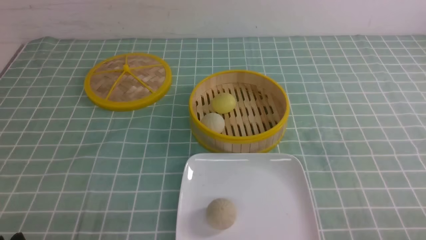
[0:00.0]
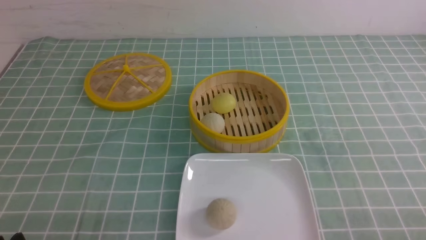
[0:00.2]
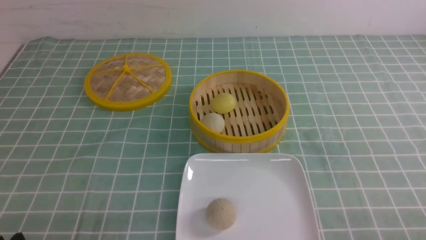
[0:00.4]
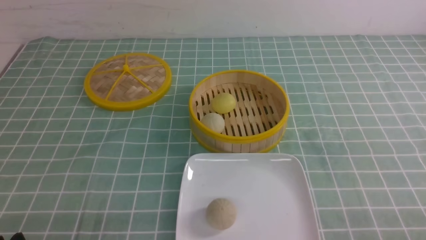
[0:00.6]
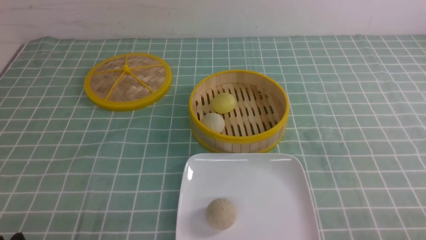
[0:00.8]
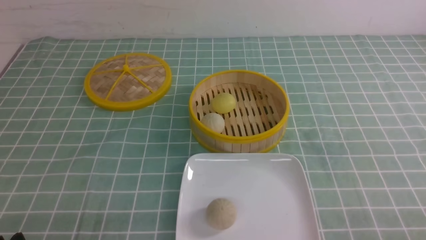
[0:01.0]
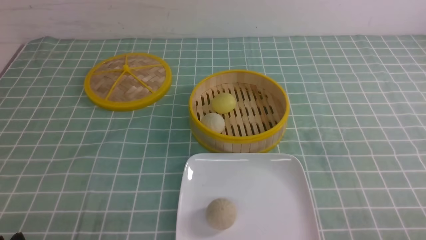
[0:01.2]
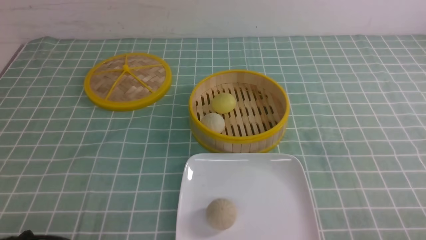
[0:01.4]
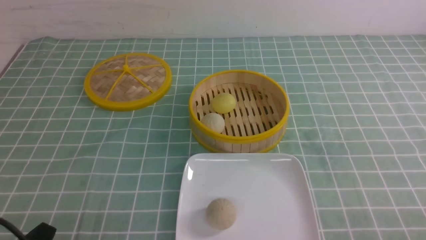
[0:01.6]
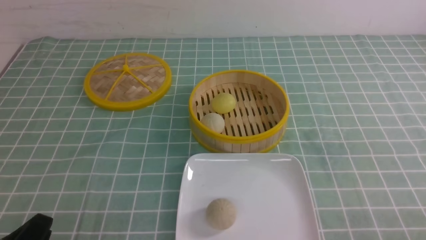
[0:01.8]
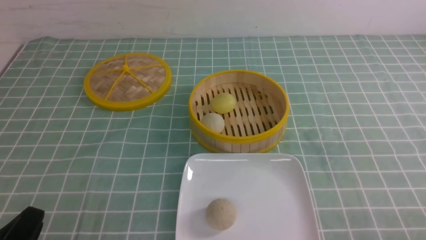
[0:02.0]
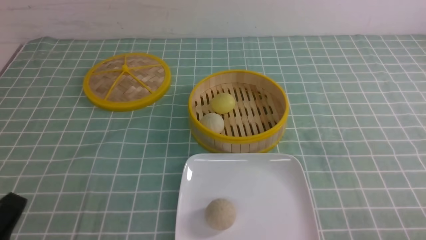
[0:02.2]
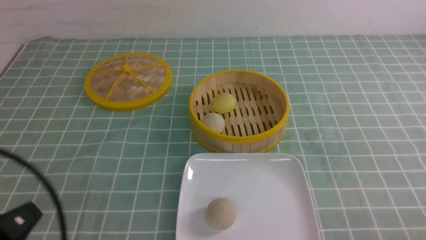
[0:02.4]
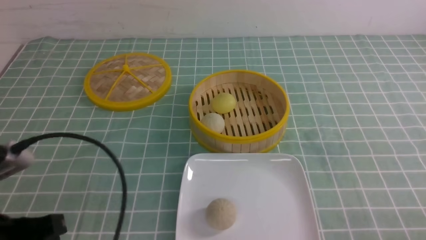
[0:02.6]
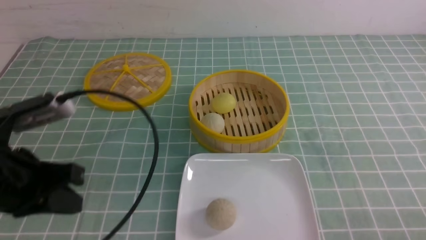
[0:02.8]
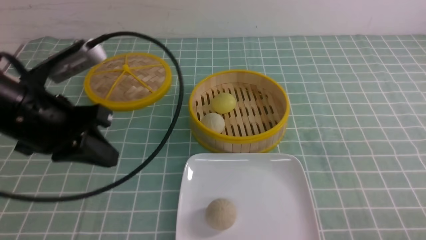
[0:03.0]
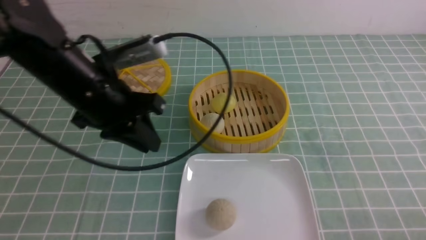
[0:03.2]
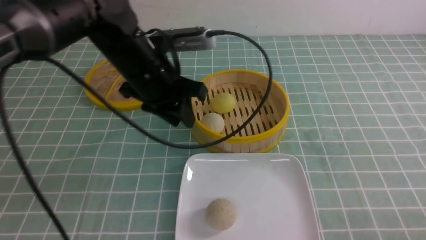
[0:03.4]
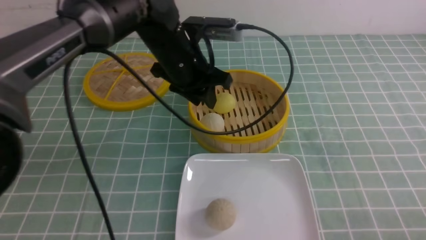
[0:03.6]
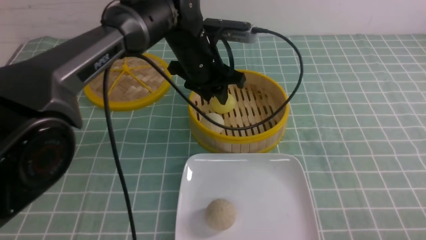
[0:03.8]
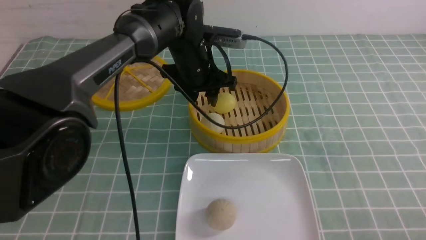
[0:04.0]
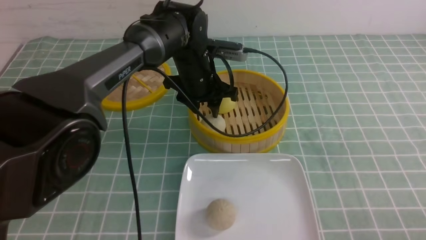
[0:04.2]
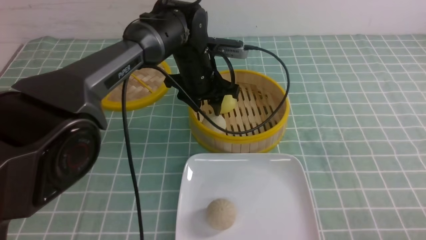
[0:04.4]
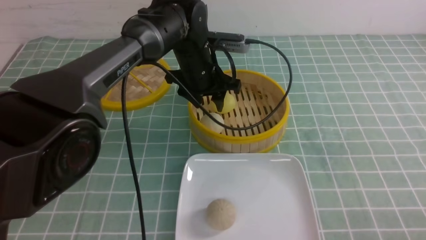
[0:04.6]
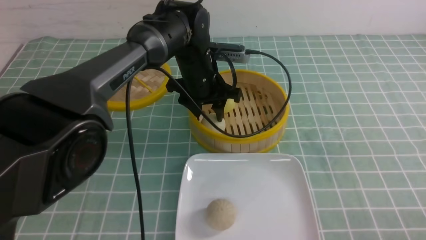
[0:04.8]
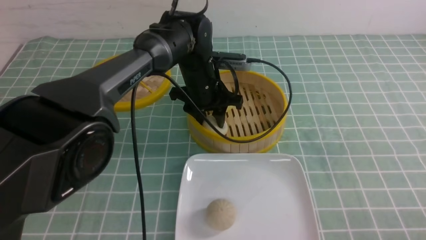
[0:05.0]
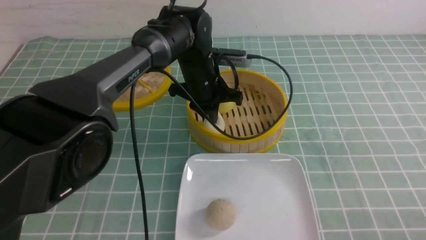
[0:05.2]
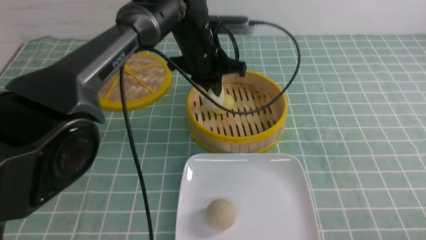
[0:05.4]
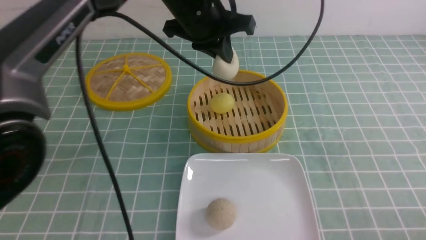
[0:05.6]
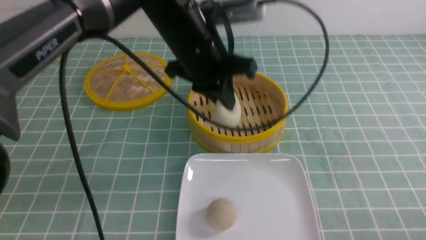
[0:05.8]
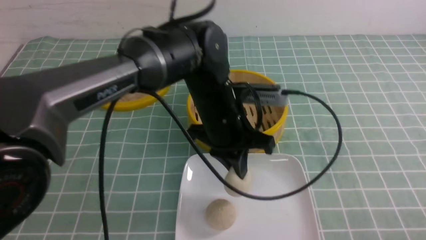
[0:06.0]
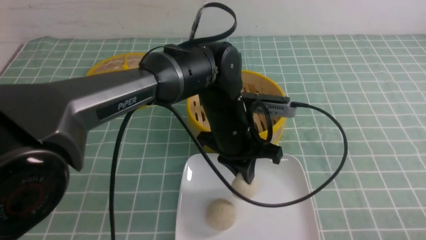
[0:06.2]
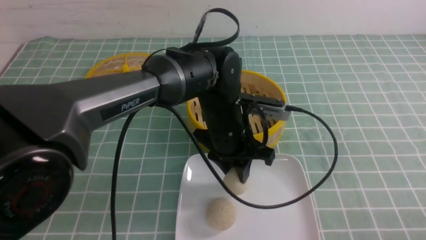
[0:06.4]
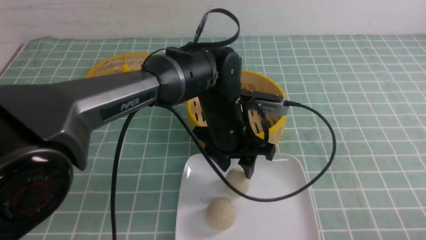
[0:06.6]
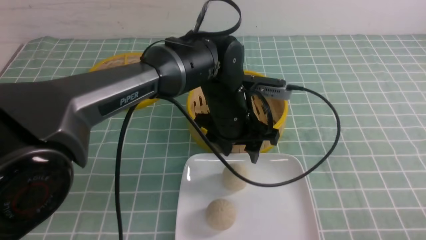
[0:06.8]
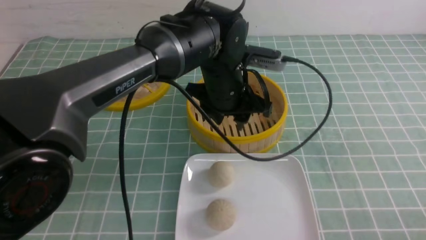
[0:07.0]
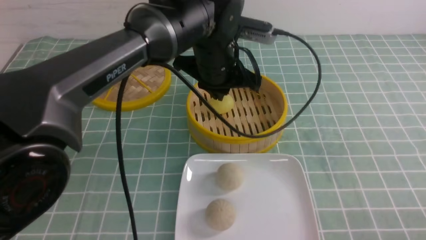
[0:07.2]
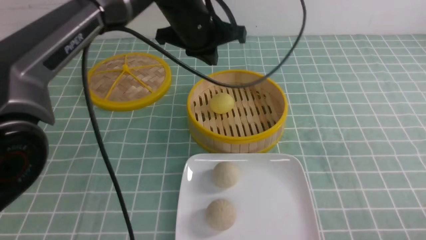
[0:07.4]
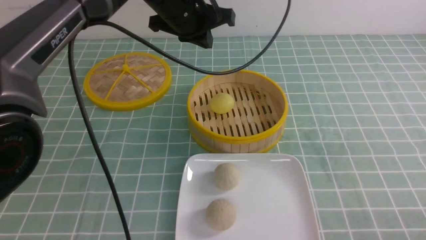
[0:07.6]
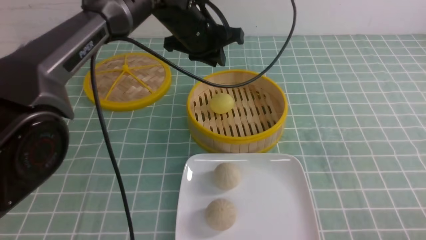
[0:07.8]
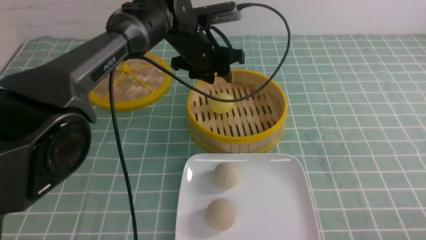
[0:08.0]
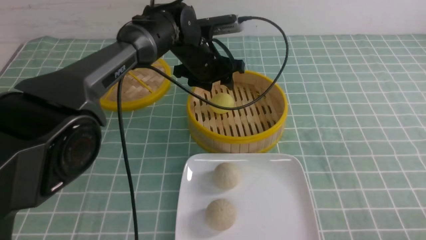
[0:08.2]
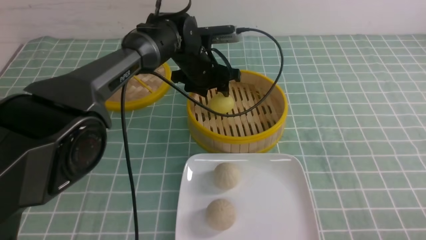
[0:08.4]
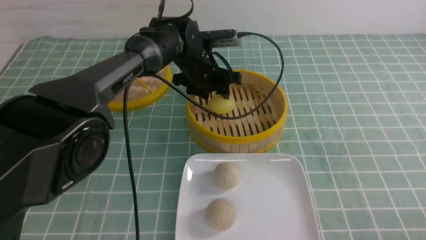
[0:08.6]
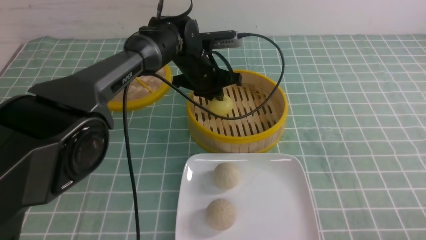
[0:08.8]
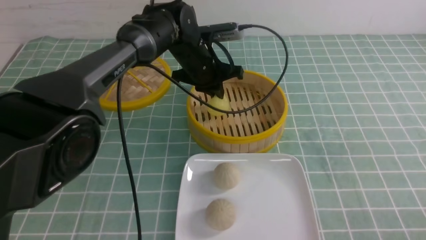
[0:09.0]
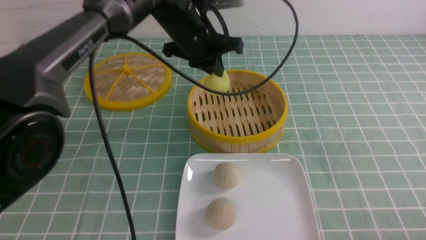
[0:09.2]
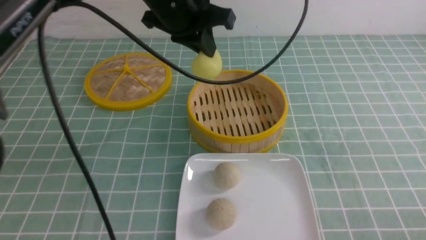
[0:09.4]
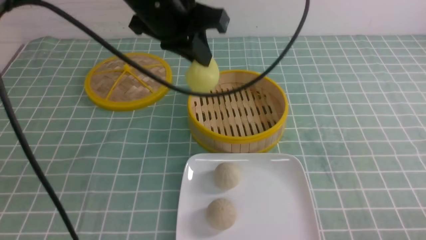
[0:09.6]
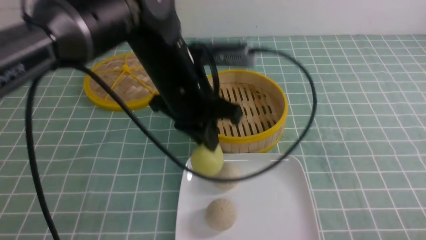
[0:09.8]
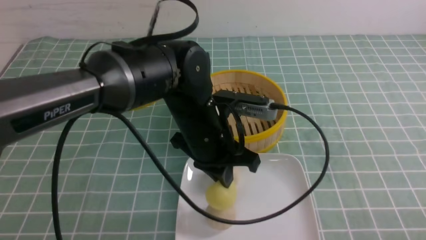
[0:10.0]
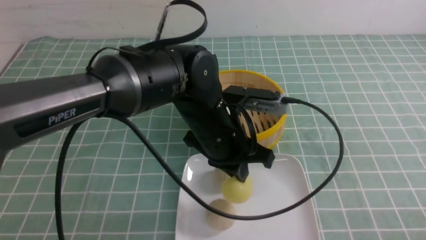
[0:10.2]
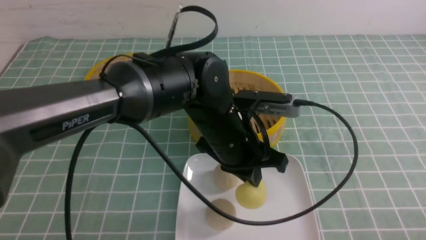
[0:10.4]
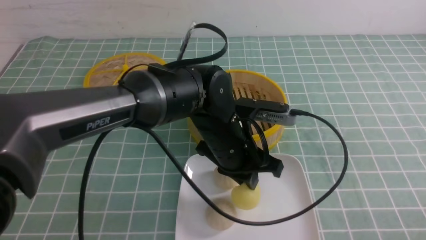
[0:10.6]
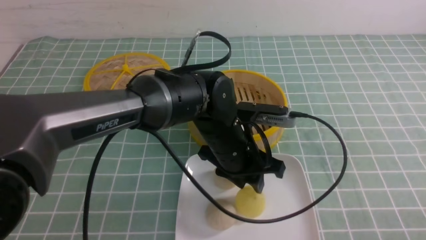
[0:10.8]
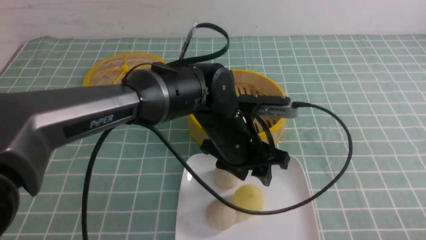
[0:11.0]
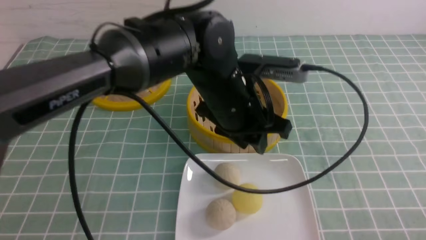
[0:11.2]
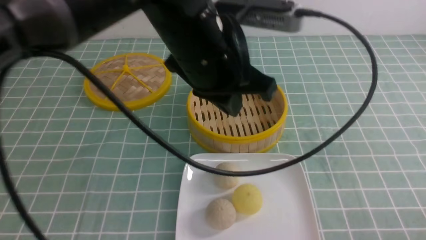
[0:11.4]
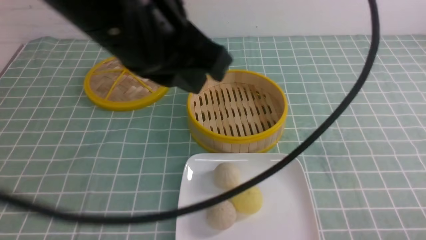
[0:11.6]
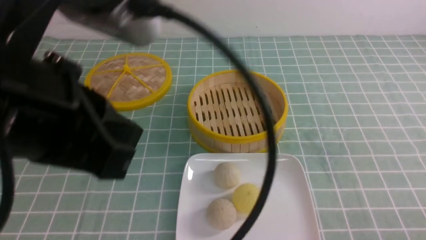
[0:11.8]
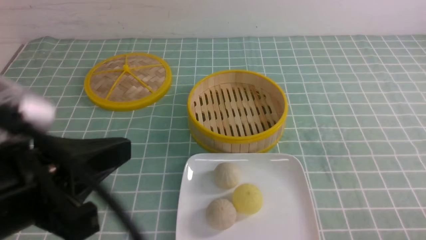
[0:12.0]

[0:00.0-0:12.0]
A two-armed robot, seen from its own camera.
Step, 0:00.0 to 0:05.0: use the left arm to grab the steamed stuffed bun that is closest to it.
Step, 0:05.4 to 0:06.6: use the left arm to put the steamed stuffed bun into the plate.
Step, 0:06.8 to 0:08.8: use the left arm to grab the steamed stuffed bun that is closest to it.
Step, 0:09.0 to 0:10.8: use the left arm to put the steamed stuffed bun into the plate.
0:01.6 to 0:03.0: The left gripper goes about 25 cm forward and upward, and closes its fingers.
0:03.0 to 0:04.4: The left gripper shifts some 25 cm forward, to the right and downward, and opens.
0:04.4 to 0:06.0: The left gripper moves backward, roughly 10 cm, moves about 10 cm upward and comes back, and closes.
0:06.0 to 0:07.6: The left gripper is displaced forward and upward by some 15 cm, and opens and closes again.
0:07.6 to 0:09.0: The left gripper shifts roughly 5 cm downward, and opens, then closes once more.
0:09.0 to 0:10.4: The left gripper is displaced backward by approximately 15 cm.
0:10.4 to 0:12.0: The left gripper travels to the left, backward and upward by about 30 cm, and opens, then closes again.

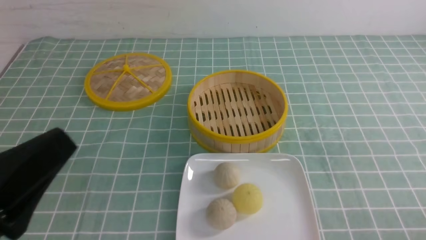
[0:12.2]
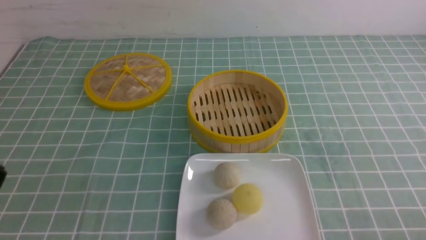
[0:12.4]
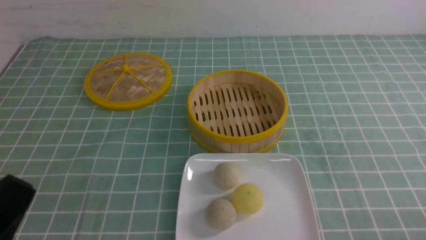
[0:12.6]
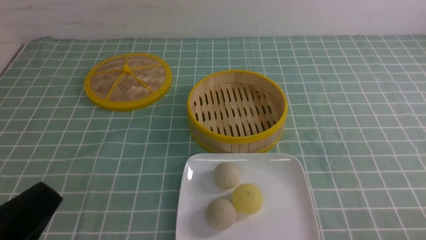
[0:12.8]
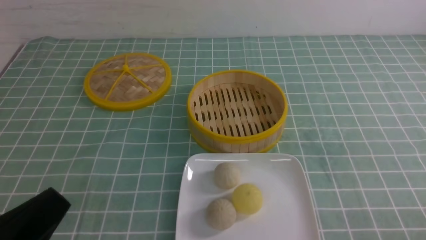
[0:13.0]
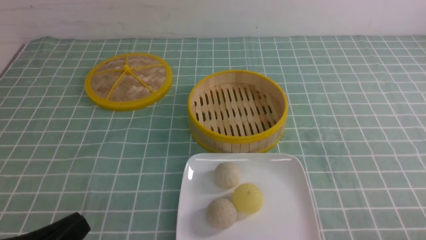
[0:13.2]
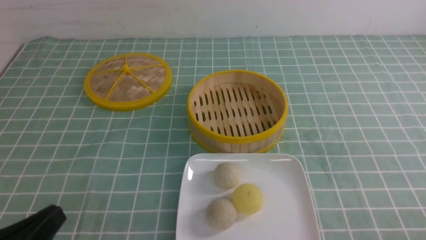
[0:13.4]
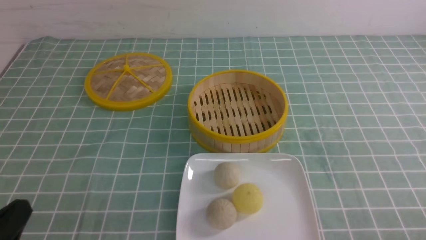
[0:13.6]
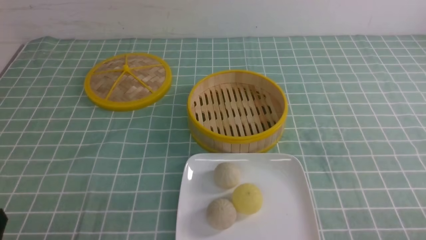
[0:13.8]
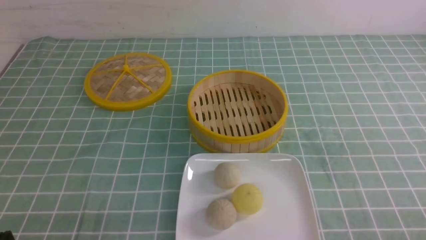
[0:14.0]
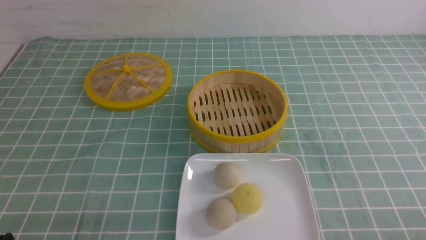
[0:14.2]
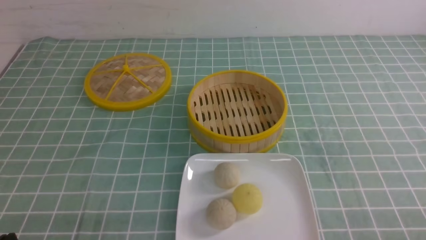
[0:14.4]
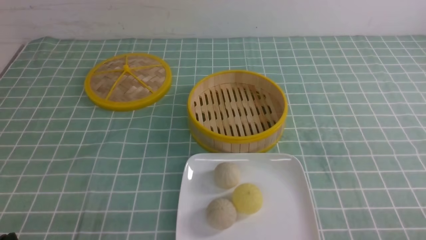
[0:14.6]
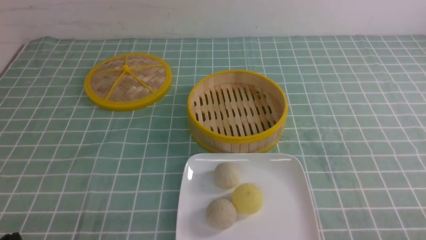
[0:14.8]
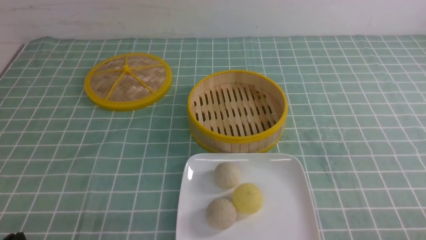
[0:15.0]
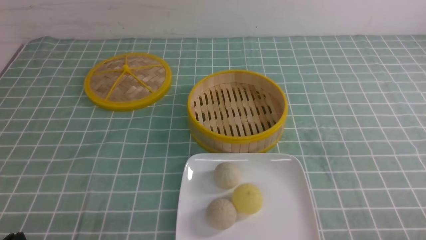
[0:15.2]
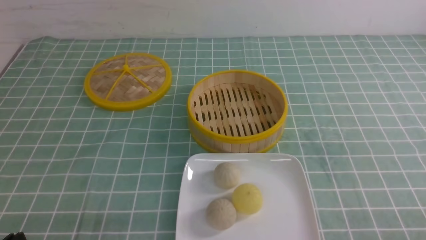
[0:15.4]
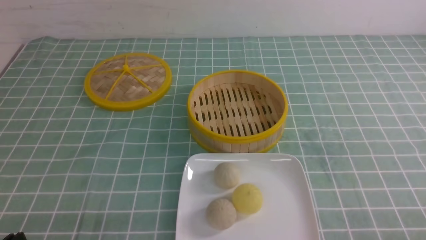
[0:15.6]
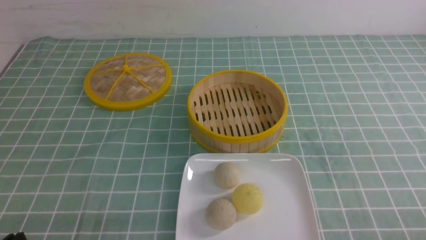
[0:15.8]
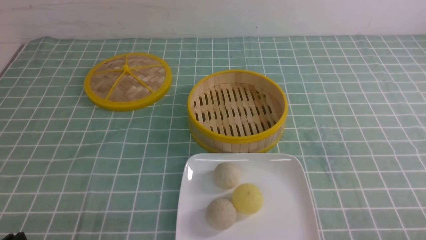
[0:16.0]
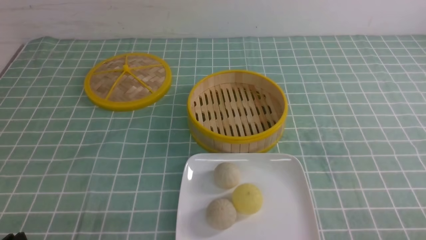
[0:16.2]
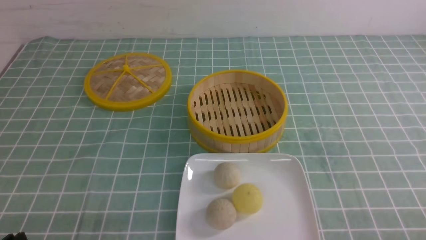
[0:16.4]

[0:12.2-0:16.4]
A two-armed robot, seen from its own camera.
0:12.2 to 0:13.6: The left gripper moves downward, approximately 10 cm.
0:13.6 to 0:15.0: The left gripper goes roughly 5 cm downward.
0:15.0 to 0:16.4: Both grippers stay about where they are.
